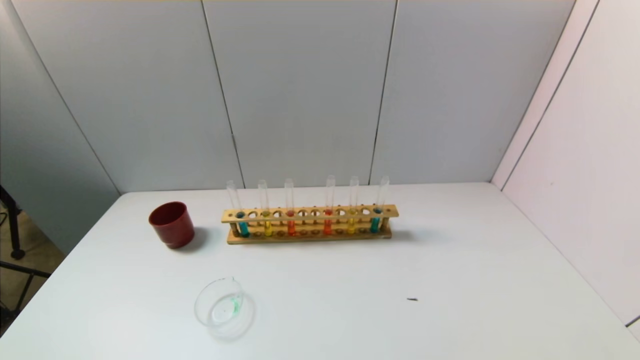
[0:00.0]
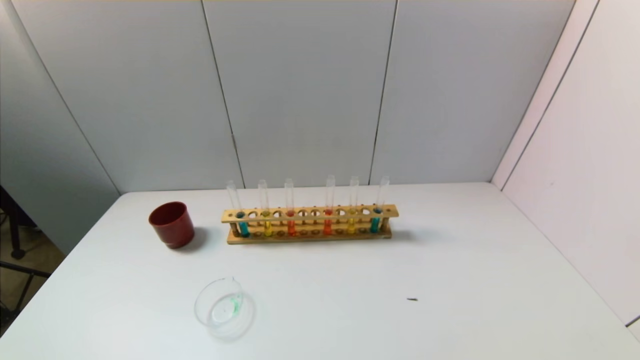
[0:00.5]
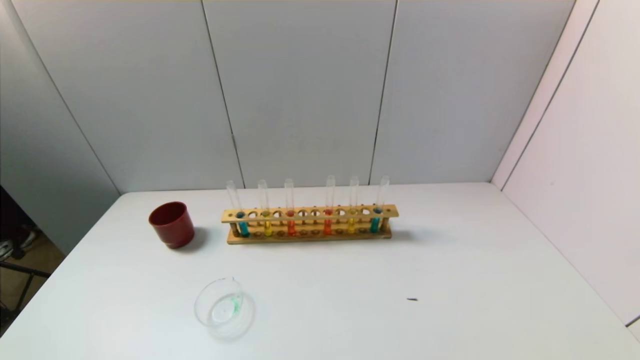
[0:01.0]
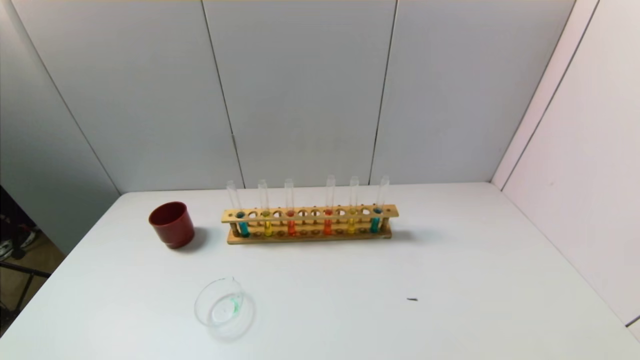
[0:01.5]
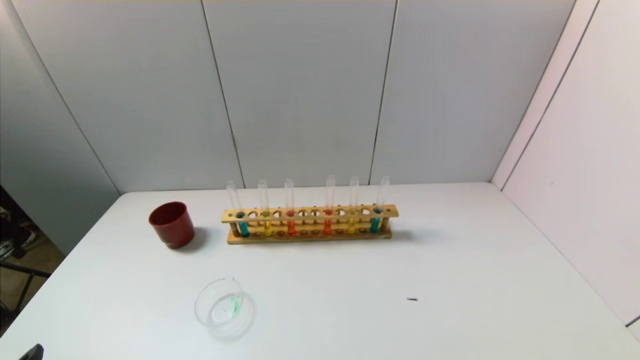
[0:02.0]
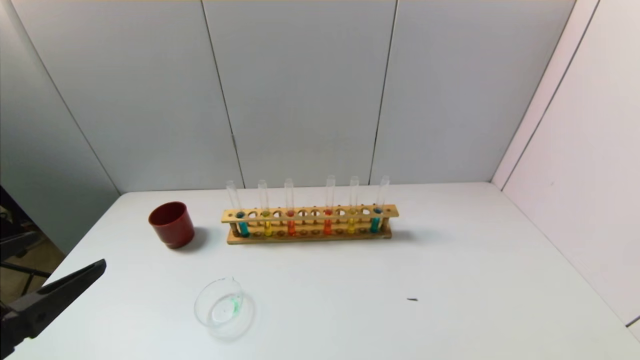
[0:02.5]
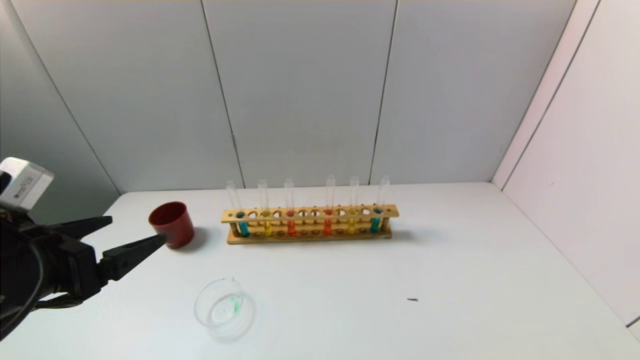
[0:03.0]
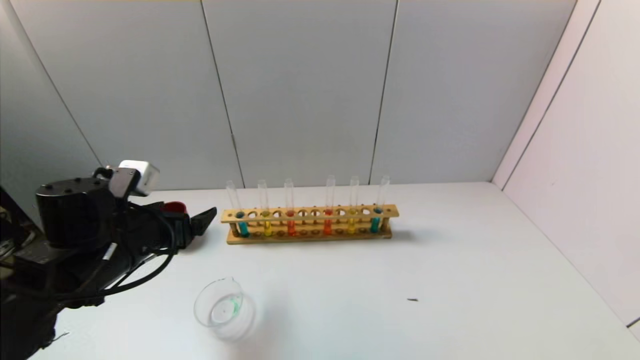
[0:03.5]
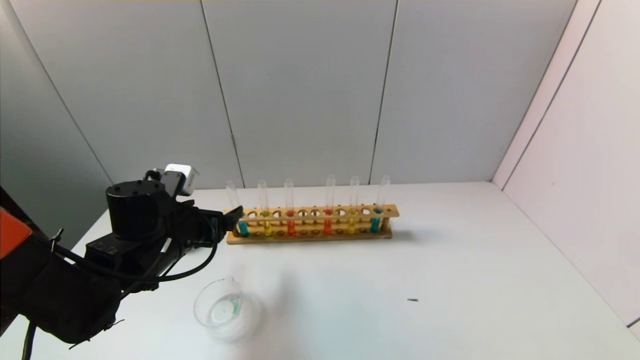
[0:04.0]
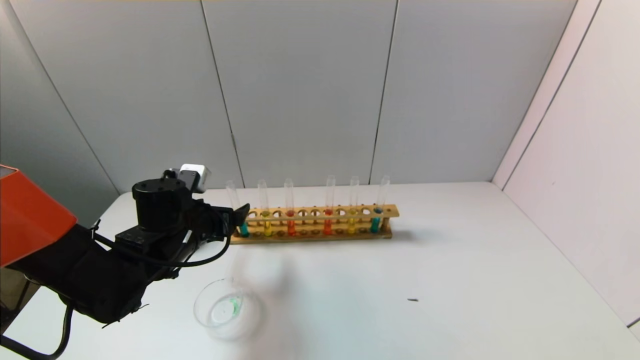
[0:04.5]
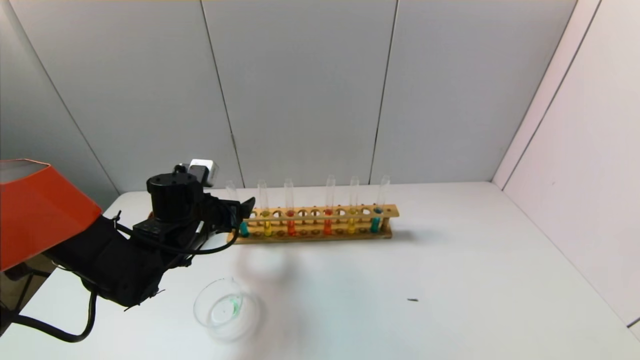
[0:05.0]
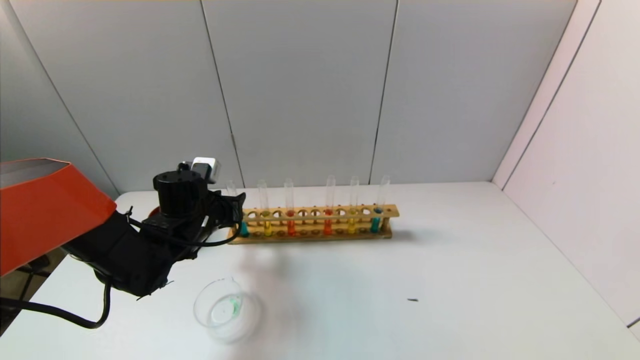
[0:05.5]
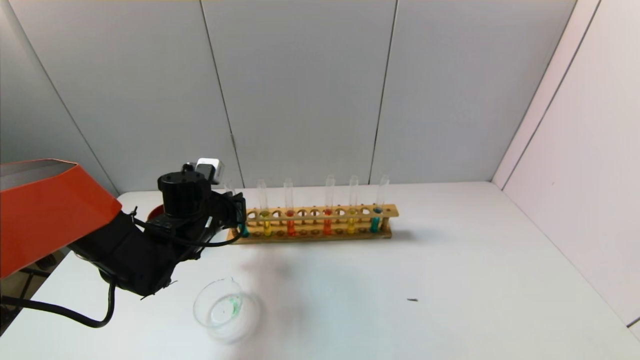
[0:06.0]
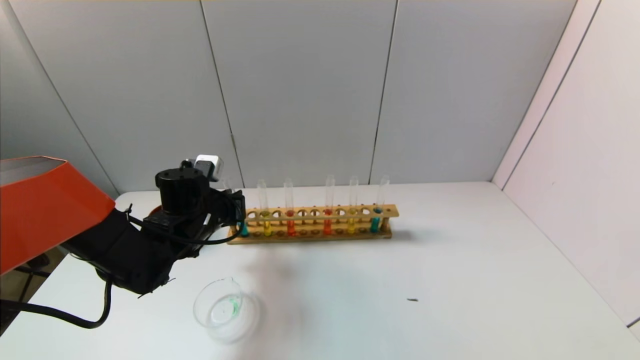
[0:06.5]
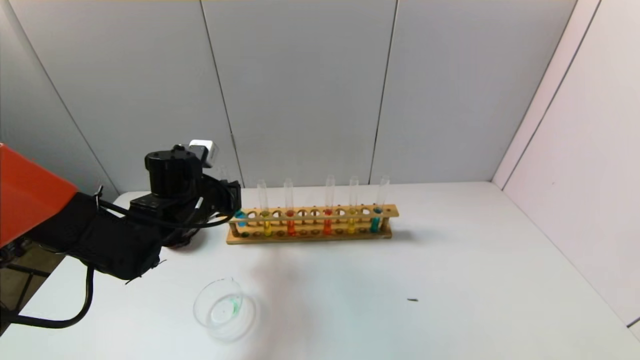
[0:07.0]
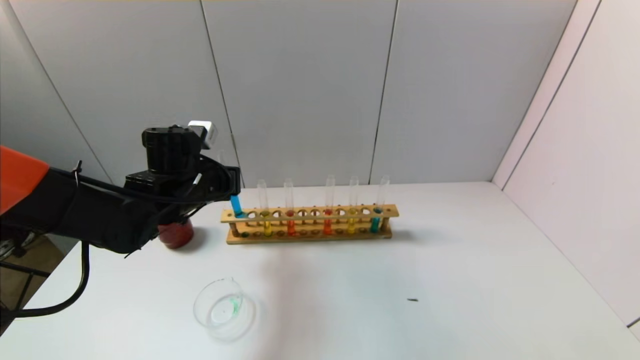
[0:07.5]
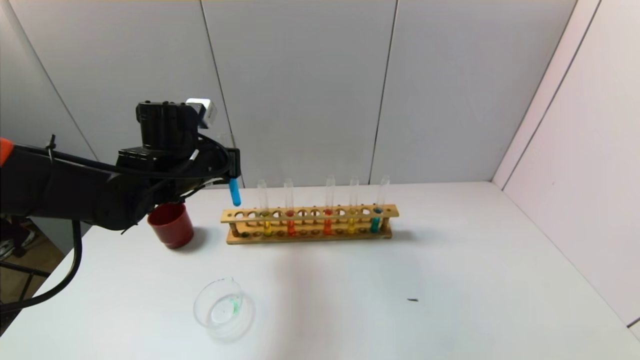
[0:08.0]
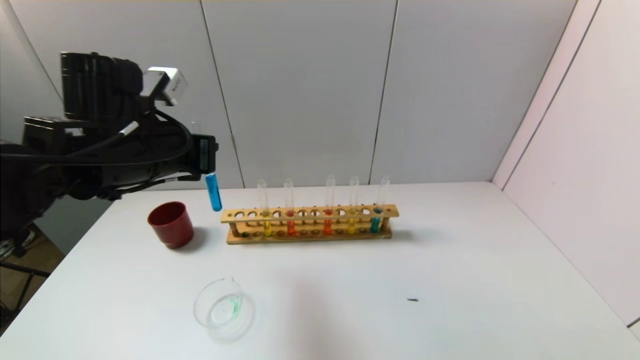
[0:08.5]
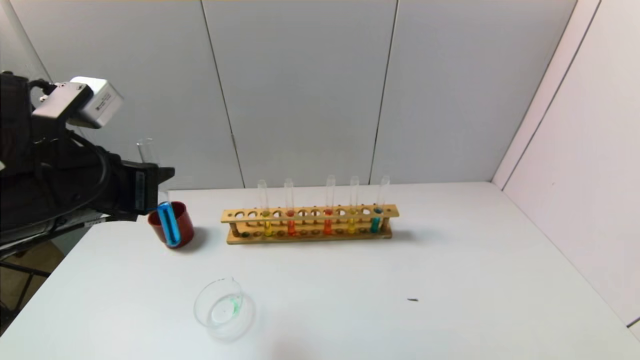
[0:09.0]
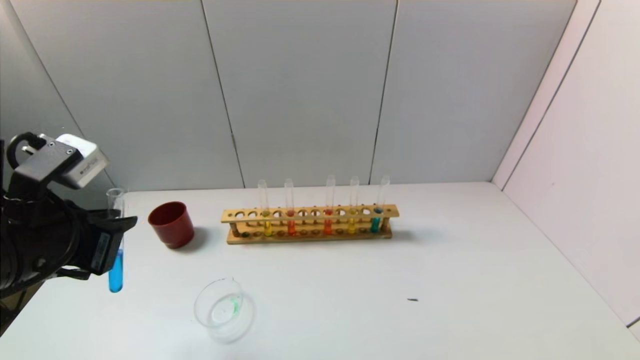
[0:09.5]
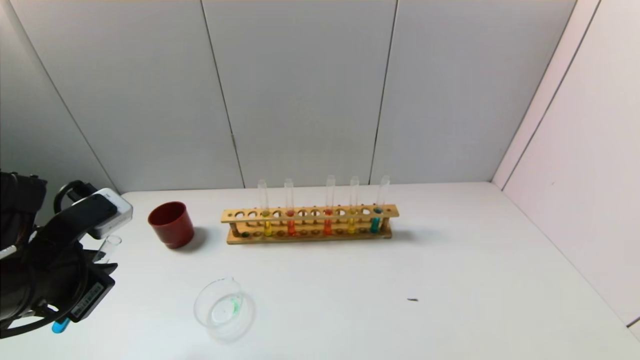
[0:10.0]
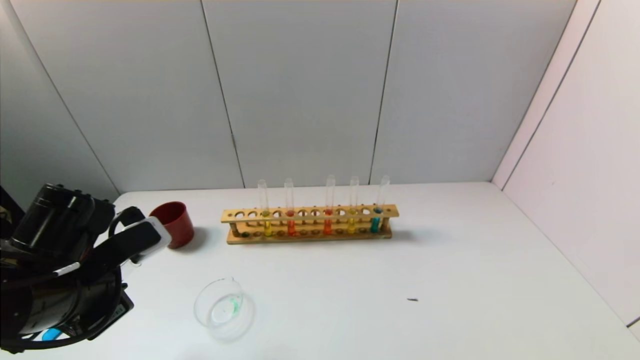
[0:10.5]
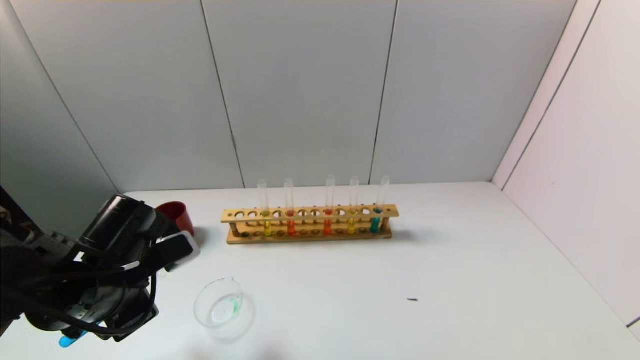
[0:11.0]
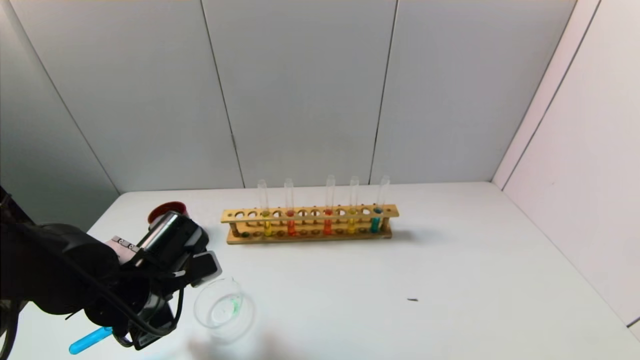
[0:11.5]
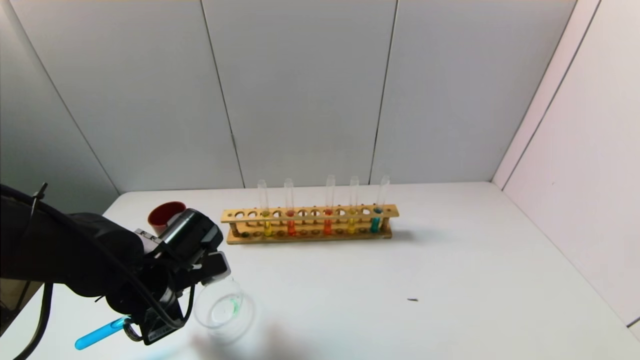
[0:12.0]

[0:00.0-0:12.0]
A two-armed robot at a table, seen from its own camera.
Task of the whole recording: pick up the test tube with yellow pigment and the test tube with blue pigment by grippers and pour them into the beaker.
Step, 0:00.0 to 0:06.0: Grasp the blue reagent with the left gripper.
0:02.0 to 0:04.0: The left gripper moves forward, about 30 cm.
0:04.0 to 0:06.0: The left gripper is displaced forward by approximately 5 cm, and closes its fingers.
0:06.0 to 0:08.0: The left gripper shifts some 10 cm upward.
0:08.0 to 0:10.0: The left gripper shifts some 20 cm backward and to the left.
0:10.0 to 0:12.0: The left gripper moves downward, to the right and forward, some 15 cm.

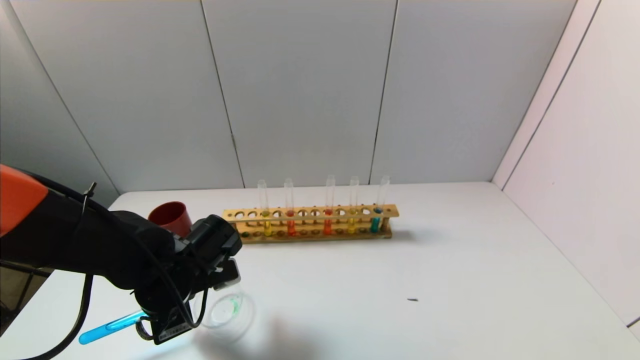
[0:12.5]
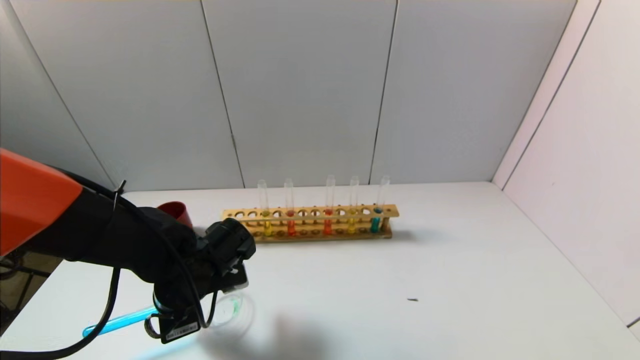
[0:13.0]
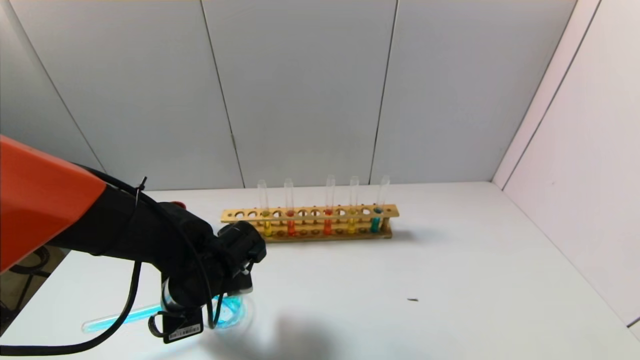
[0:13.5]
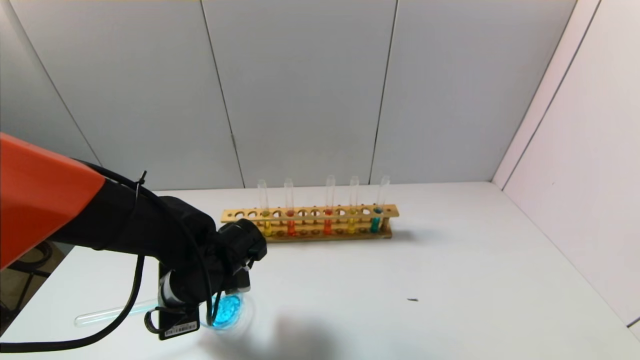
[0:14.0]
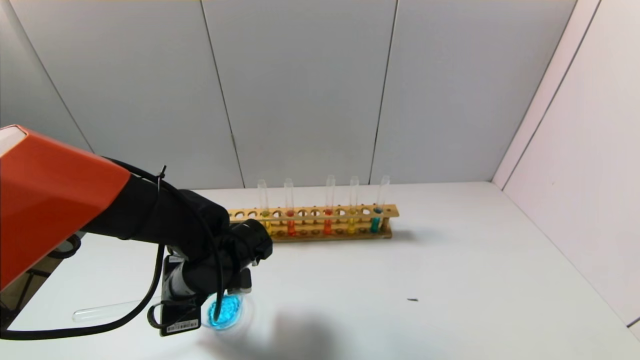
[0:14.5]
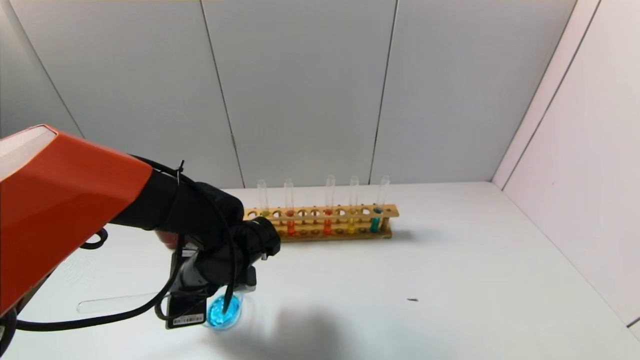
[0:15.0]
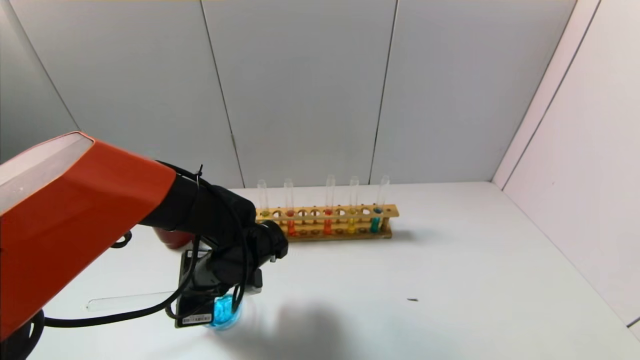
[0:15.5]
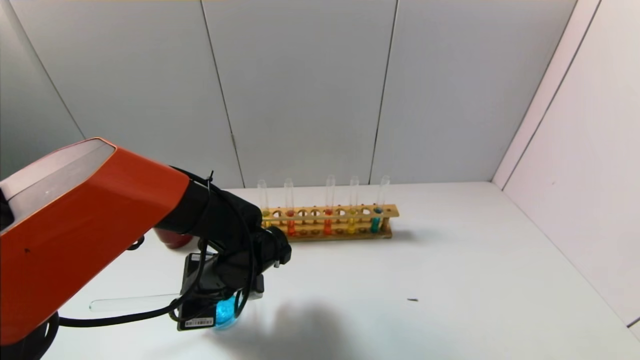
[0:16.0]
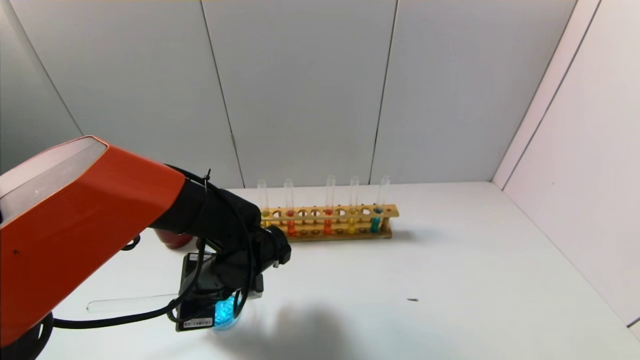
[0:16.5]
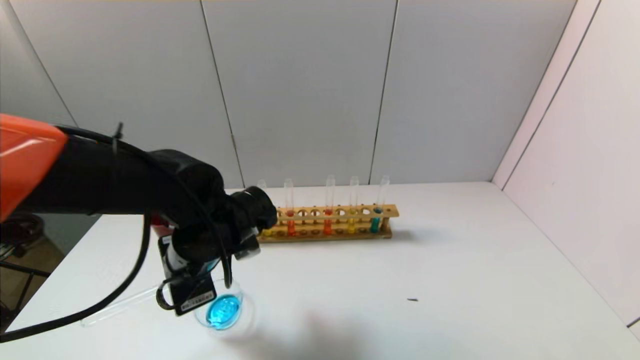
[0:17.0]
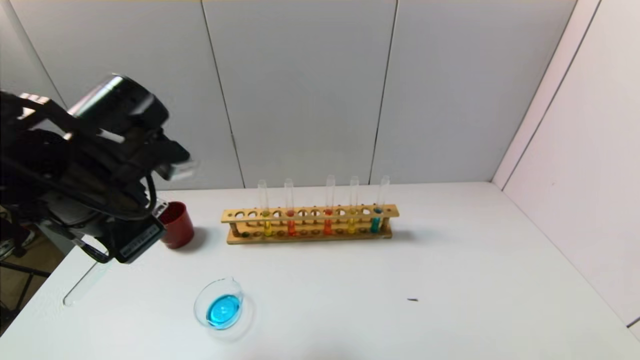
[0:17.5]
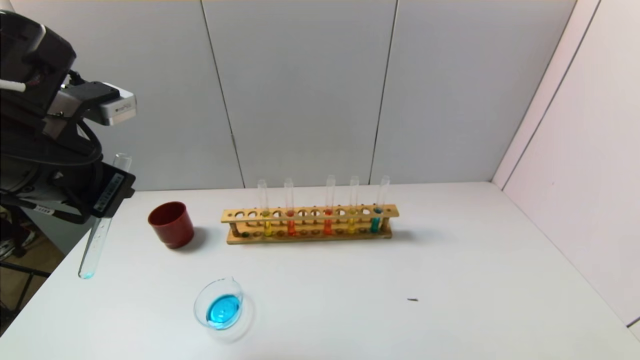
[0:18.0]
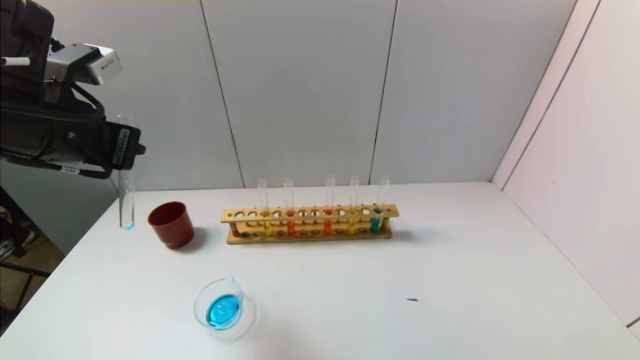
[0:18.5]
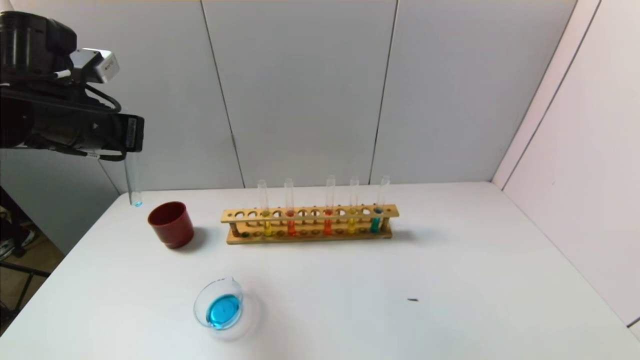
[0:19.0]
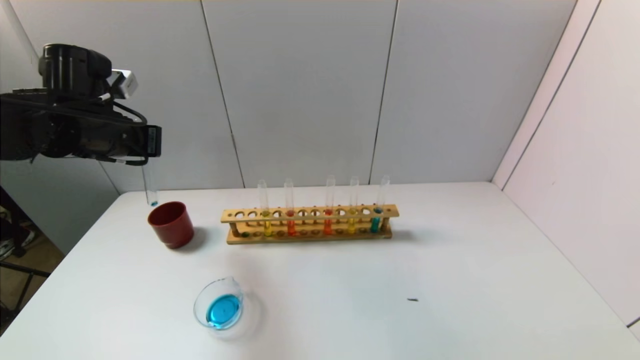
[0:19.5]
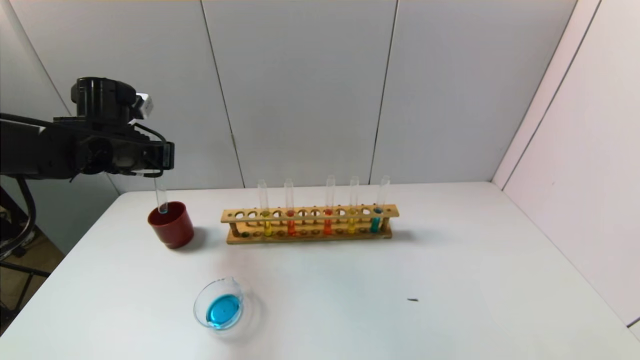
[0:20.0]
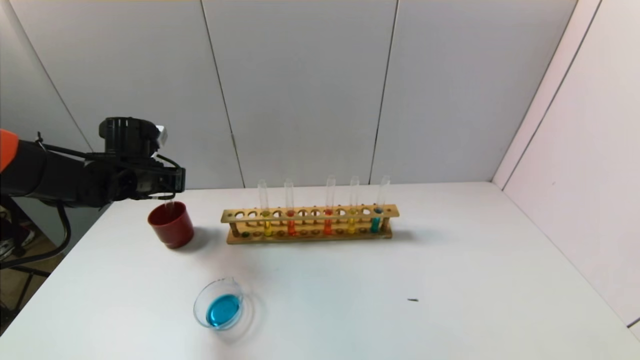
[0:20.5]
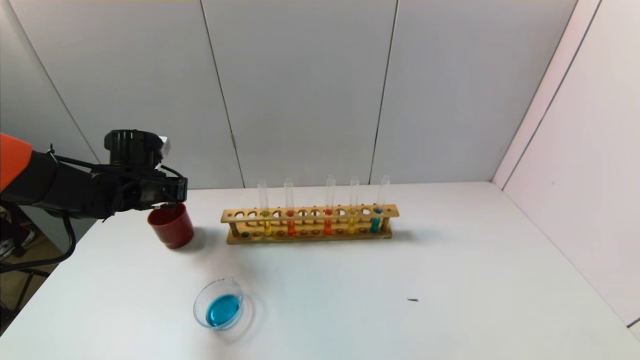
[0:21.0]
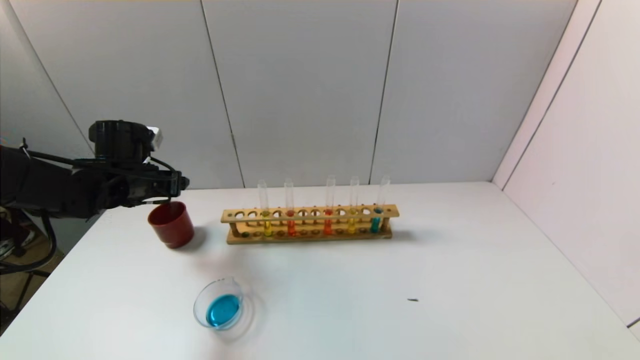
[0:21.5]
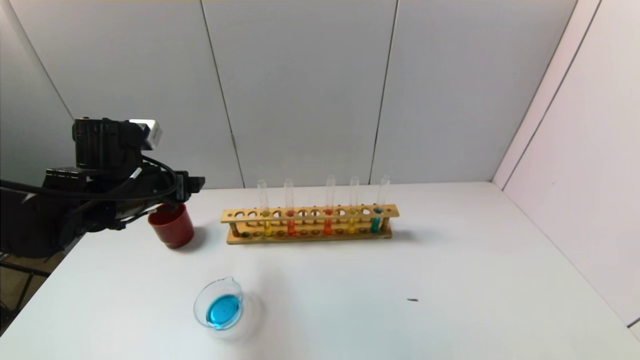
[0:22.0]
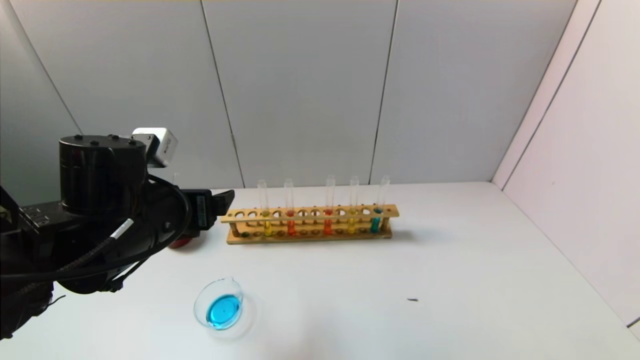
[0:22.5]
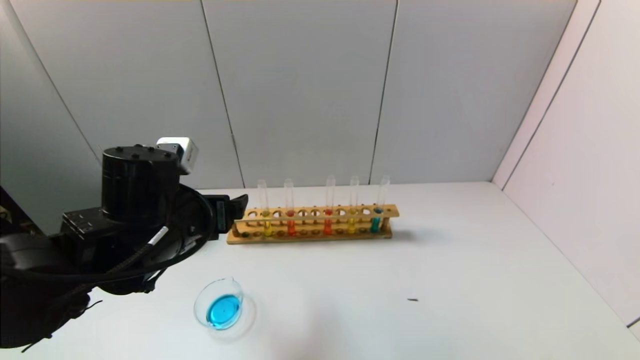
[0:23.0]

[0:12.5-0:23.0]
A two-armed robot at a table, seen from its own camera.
Task of the whole recording: pick up the test tube with yellow pigment and the test tube with blue pigment by grippers and pour them into the beaker.
Step, 0:12.5 to 0:15.5: Pour the blue reagent into the graduated cylinder with the left gripper.
Step, 0:16.0 to 0:21.5: Place the test tube into the brown cup with the left gripper.
0:12.5 to 0:14.5: The grippers stay close to where they were, moving slightly.
0:14.5 to 0:16.5: The grippers move only a little.
0:16.5 to 0:19.0: The left gripper is displaced upward and to the left by roughly 25 cm.
0:19.0 to 0:21.0: The left gripper heads downward and forward, covering some 20 cm.
0:21.0 to 0:23.0: The left gripper moves backward and to the right, about 20 cm, and opens.
